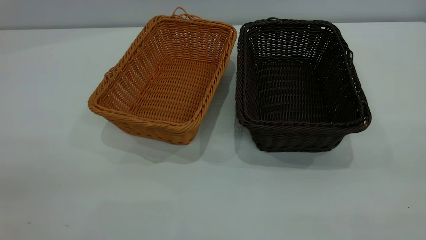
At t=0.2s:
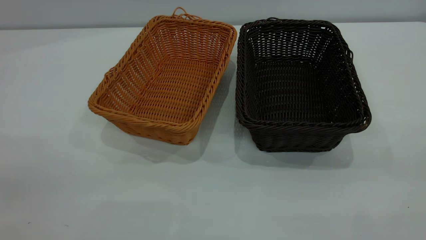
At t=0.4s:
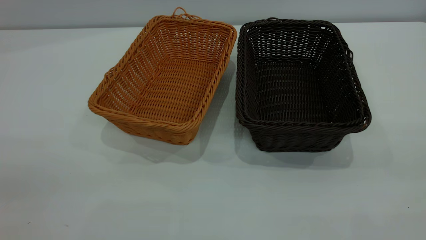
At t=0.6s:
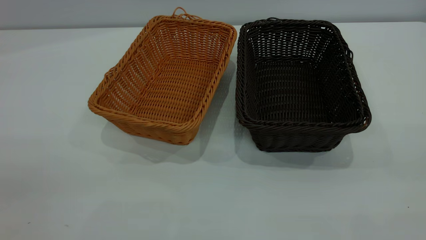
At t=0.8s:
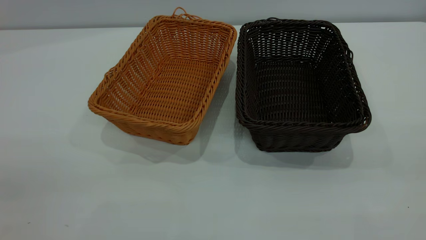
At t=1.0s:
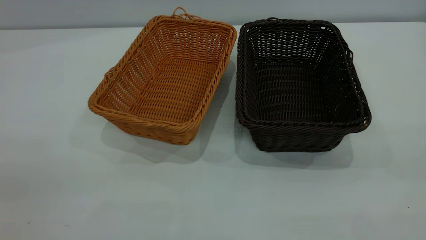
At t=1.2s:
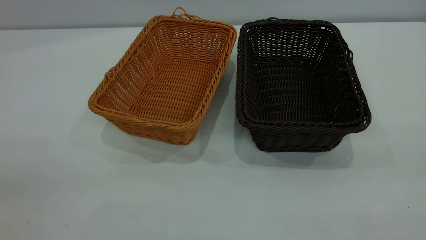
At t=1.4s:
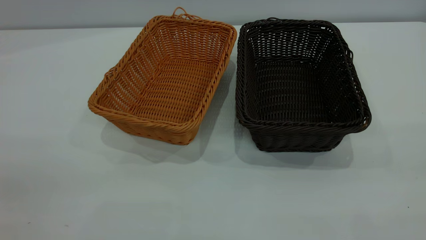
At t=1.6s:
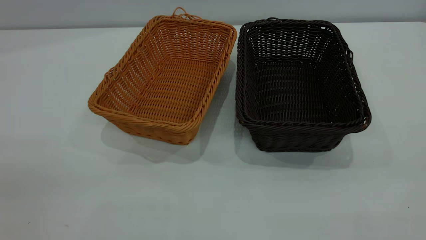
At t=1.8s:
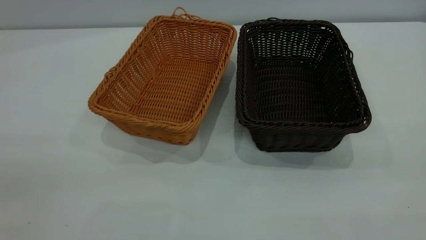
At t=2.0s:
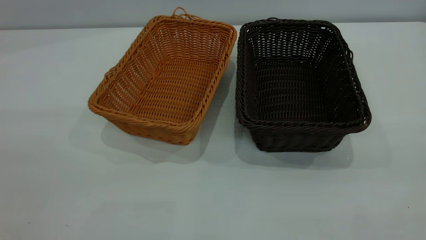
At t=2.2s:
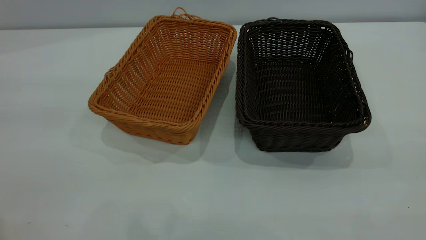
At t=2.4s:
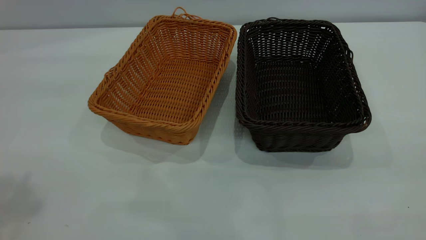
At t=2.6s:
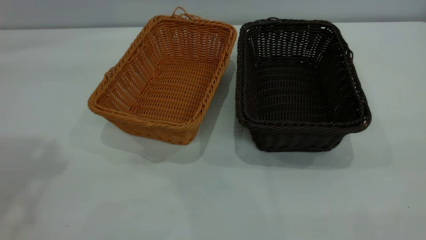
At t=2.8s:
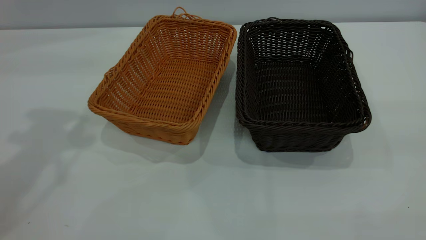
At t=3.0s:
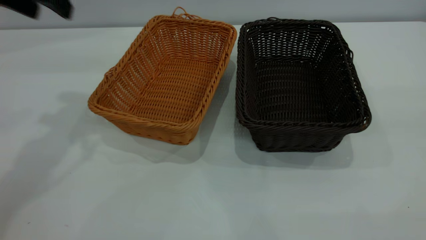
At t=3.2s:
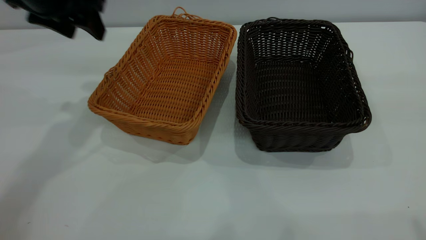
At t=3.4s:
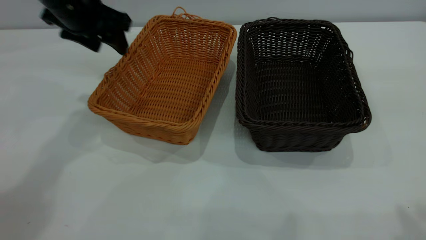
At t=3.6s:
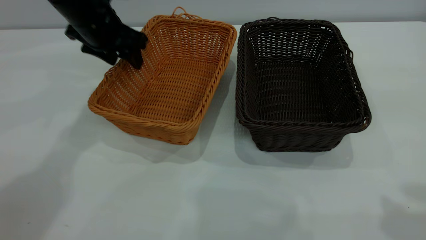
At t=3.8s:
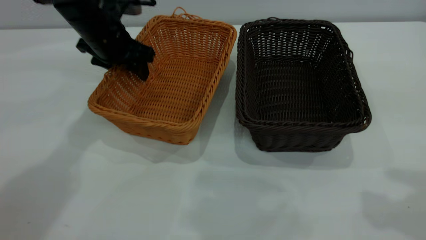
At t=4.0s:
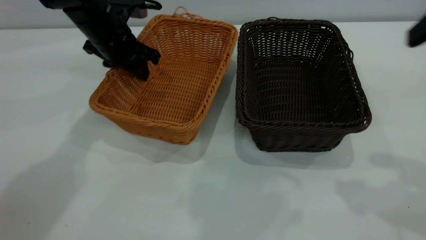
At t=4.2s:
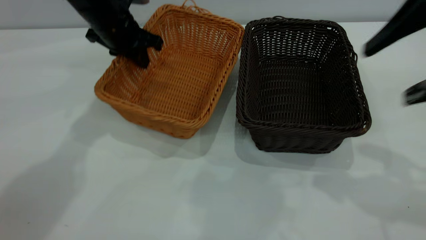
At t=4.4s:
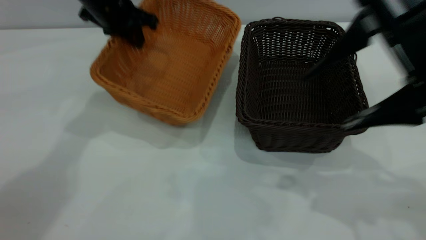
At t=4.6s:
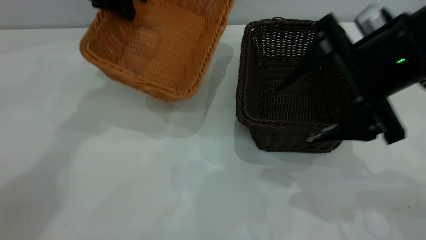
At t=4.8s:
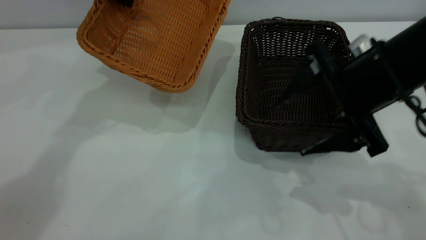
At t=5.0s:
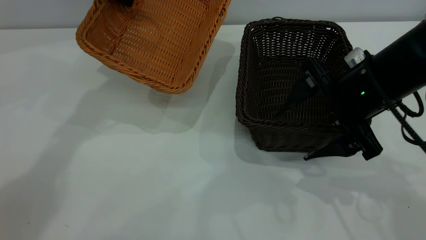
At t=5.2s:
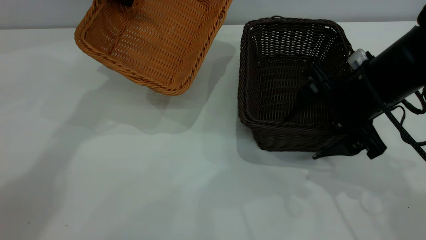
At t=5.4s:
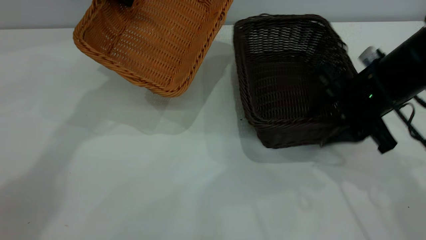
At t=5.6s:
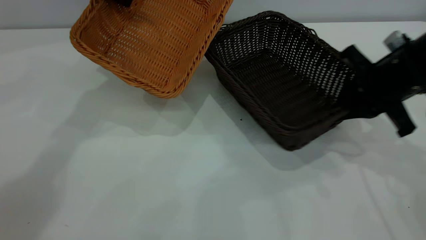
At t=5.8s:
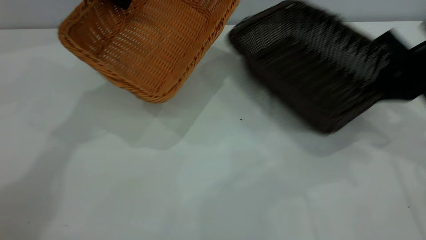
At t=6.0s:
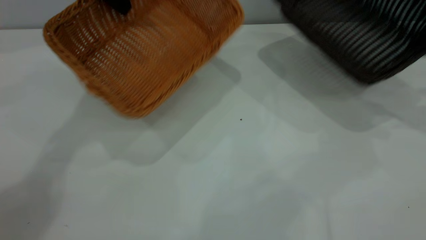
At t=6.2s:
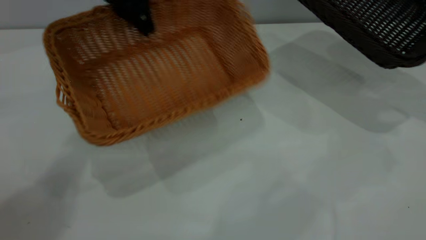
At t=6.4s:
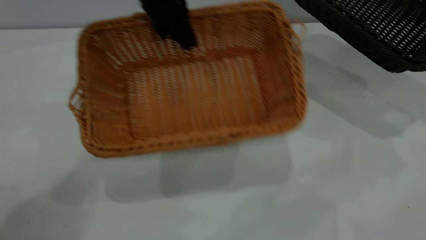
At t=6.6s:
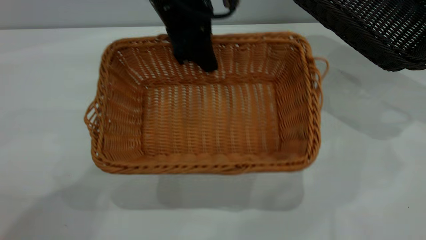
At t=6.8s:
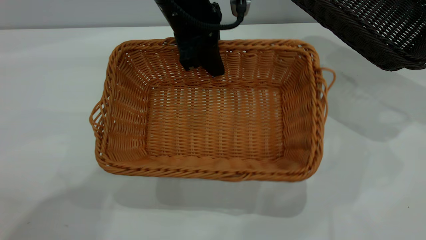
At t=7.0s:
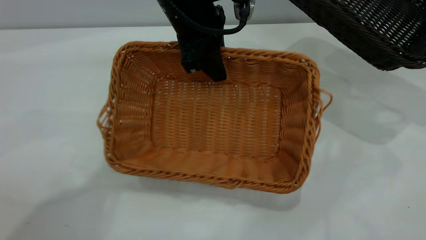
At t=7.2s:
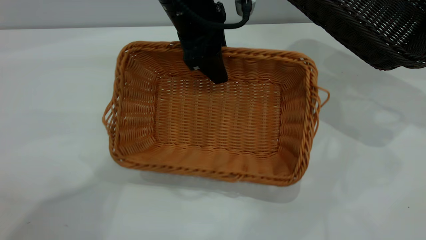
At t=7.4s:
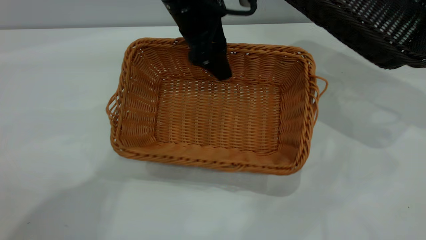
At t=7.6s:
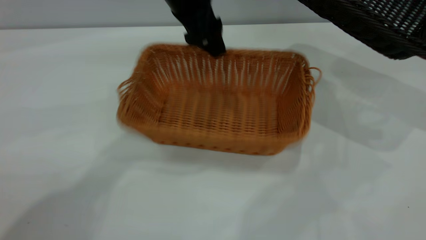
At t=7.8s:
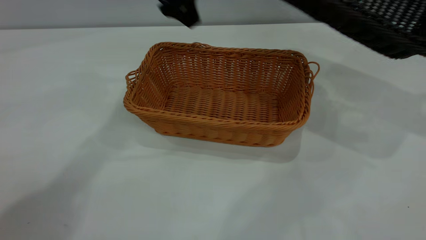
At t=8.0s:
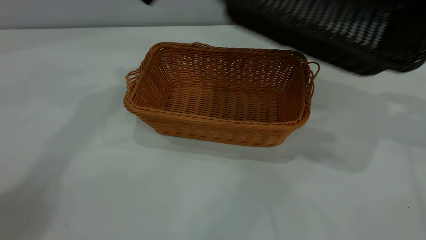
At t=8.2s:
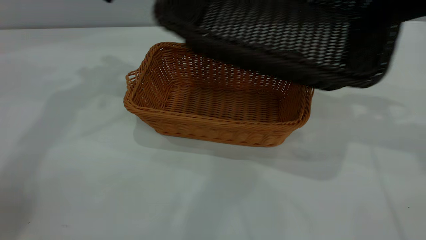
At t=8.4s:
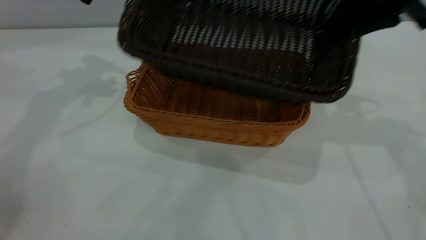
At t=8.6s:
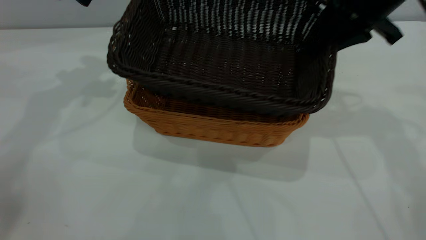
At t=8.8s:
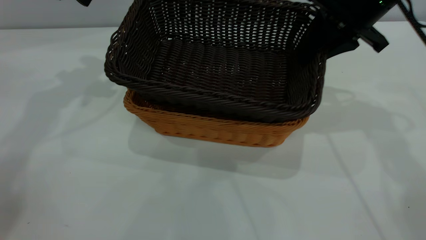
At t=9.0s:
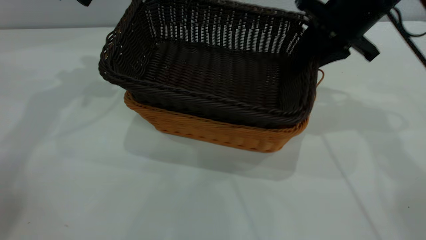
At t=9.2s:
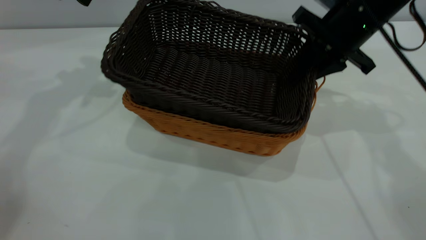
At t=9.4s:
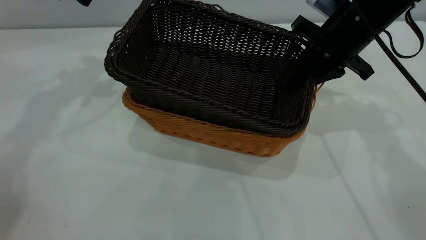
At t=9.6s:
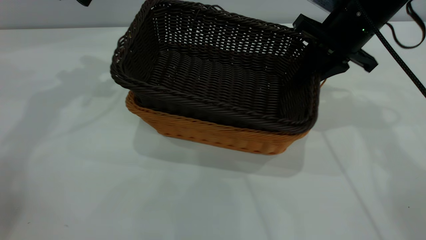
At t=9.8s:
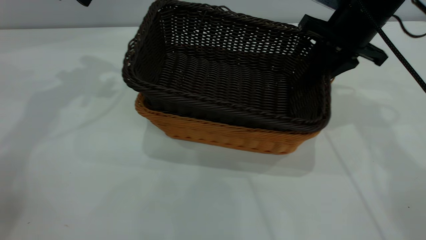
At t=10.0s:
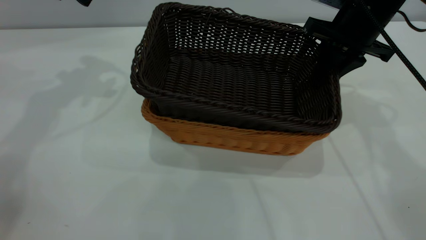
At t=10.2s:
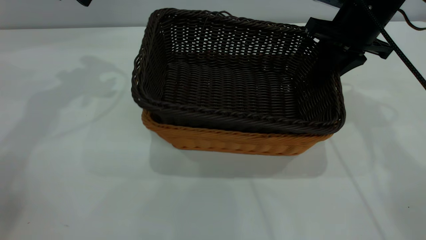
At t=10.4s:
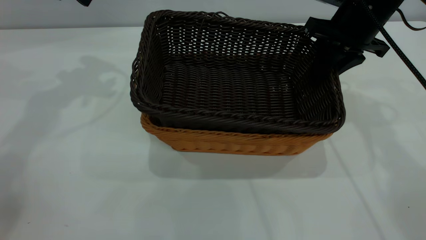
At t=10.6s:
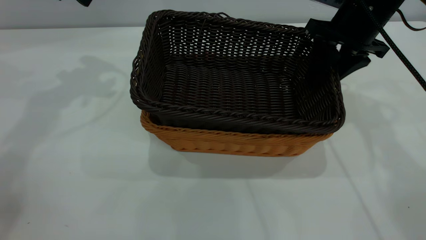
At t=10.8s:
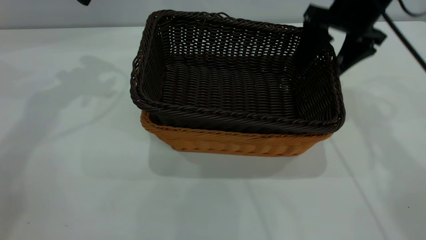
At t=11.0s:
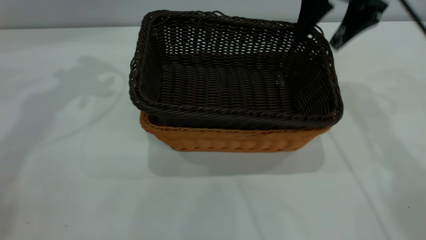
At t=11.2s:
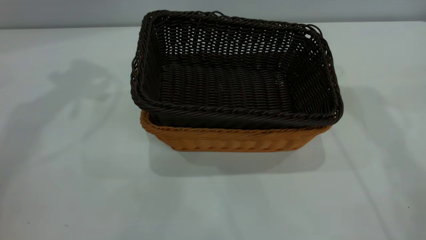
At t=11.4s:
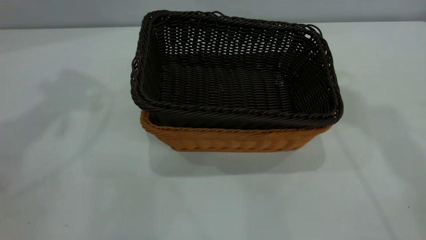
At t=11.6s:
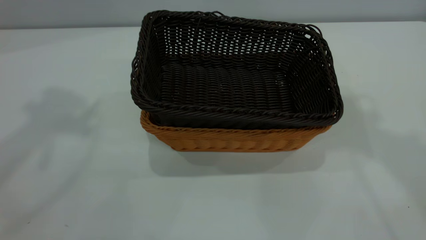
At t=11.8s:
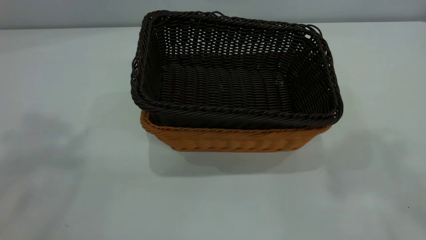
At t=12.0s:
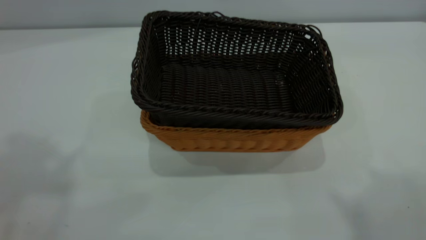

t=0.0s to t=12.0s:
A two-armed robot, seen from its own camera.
Task of the whole recording: the left gripper grasp the brown basket and place it in the center of the table, the right gripper grasp the black basket and place it inside the brown one.
Step, t=0.0s to t=5.8s: Pick up the light basket with the right gripper.
Step, t=6.0s to t=7.6s: Place the light-colored basket in the center.
Step, t=7.8s to t=11.0s: Place the dark basket on top of the light basket.
t=0.0s to t=1.6s: Both grippers stay about where they are.
t=1.6s to t=3.0s: The left gripper heads forward, covering some 40 cm.
t=3.0s to t=4.4s: The left gripper travels forward, downward and to the right by about 15 cm, and closes, while the right gripper heads forward, downward and to the left, covering some 25 cm.
t=4.4s to t=6.0s: The left gripper goes roughly 5 cm upward. The right gripper shifts approximately 20 cm to the right and forward, and closes its fingers.
t=6.0s to t=7.6s: The left gripper travels to the right by approximately 10 cm, and opens up. Meanwhile the right gripper travels upward by roughly 5 cm.
t=7.6s to t=9.0s: Both grippers move to the left, some 20 cm.
t=9.0s to t=10.4s: The grippers stay close to where they were, moving slightly.
t=10.4s to t=12.0s: The grippers both shift upward and backward by some 40 cm. The right gripper opens its fingers.
